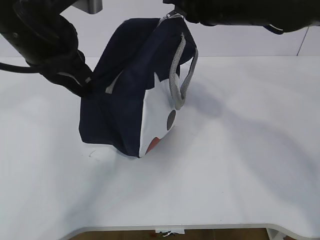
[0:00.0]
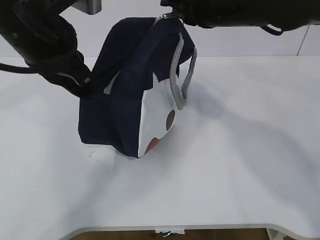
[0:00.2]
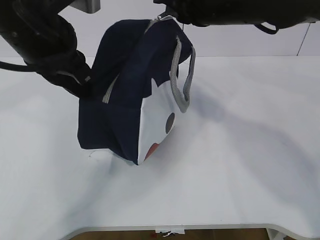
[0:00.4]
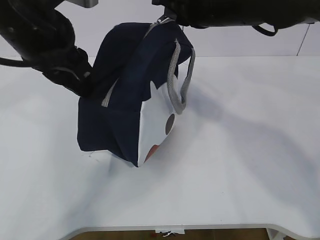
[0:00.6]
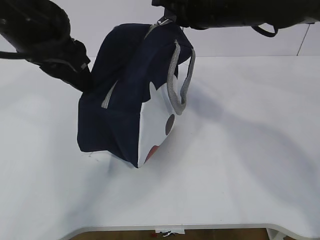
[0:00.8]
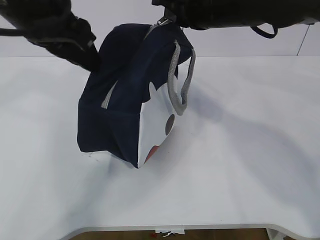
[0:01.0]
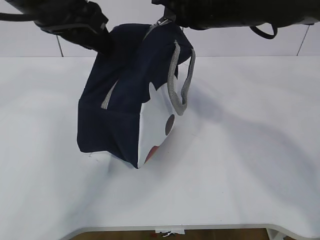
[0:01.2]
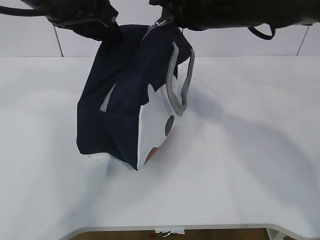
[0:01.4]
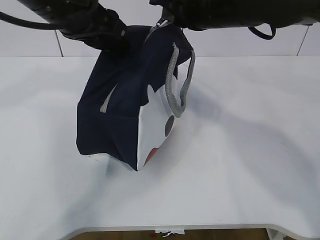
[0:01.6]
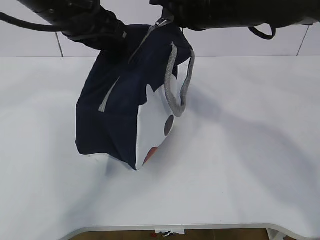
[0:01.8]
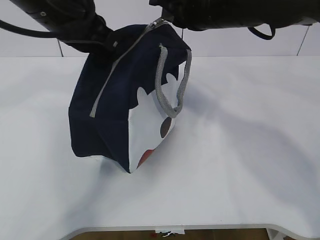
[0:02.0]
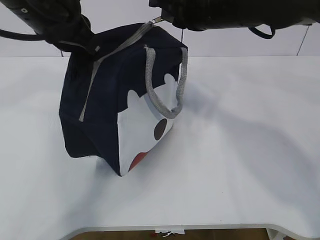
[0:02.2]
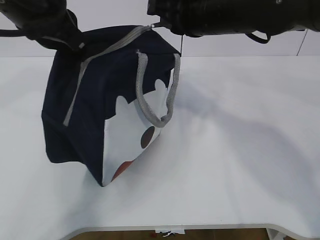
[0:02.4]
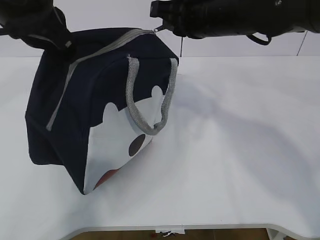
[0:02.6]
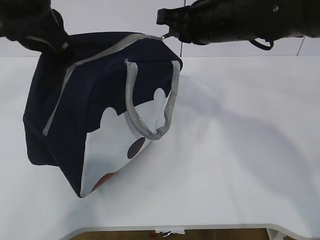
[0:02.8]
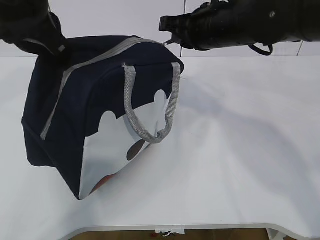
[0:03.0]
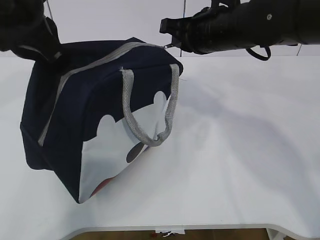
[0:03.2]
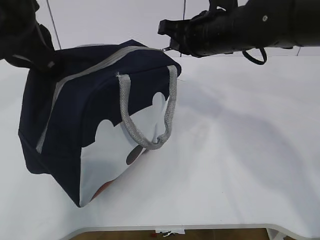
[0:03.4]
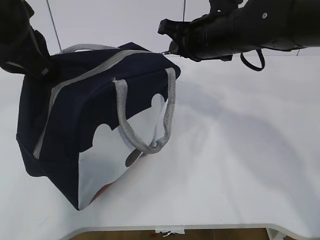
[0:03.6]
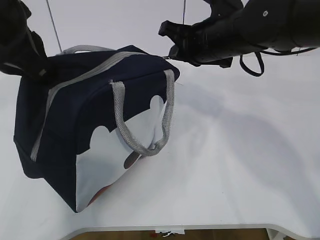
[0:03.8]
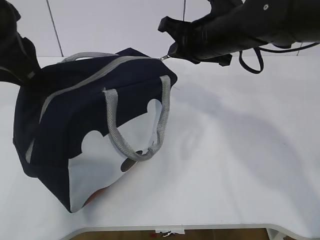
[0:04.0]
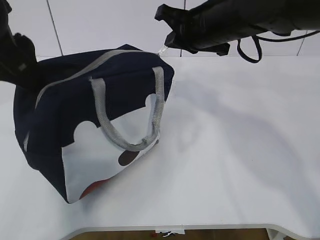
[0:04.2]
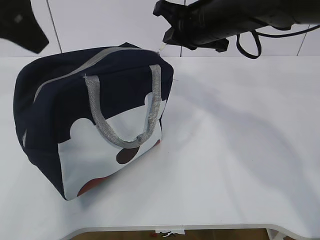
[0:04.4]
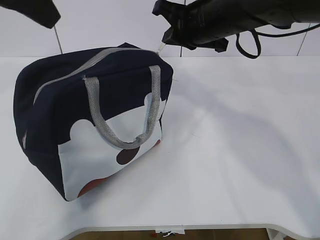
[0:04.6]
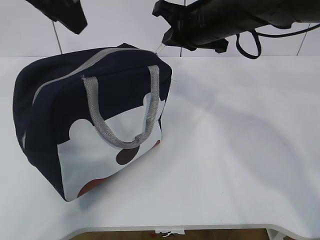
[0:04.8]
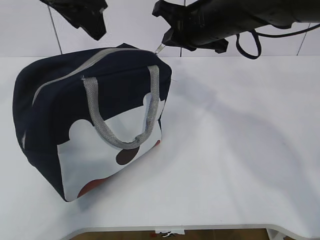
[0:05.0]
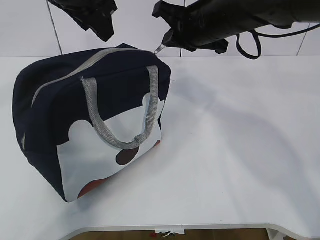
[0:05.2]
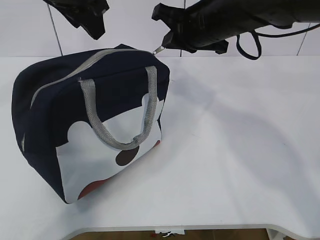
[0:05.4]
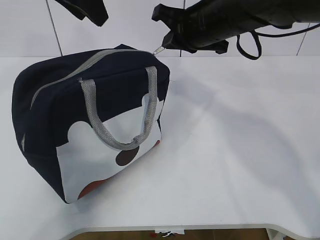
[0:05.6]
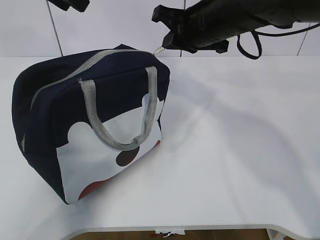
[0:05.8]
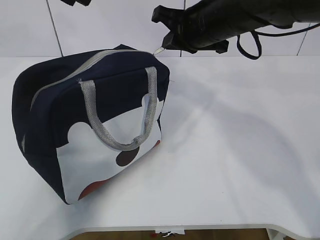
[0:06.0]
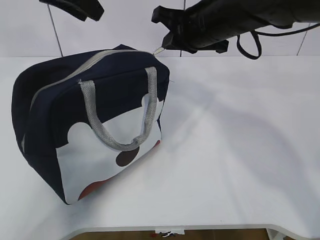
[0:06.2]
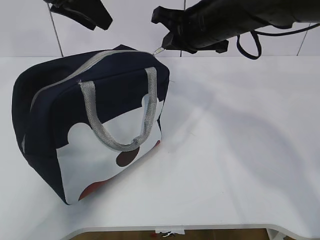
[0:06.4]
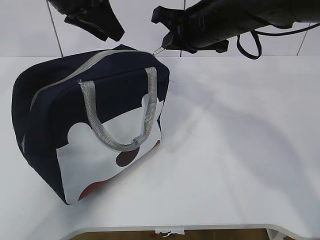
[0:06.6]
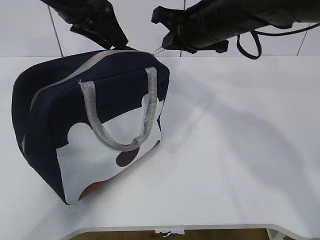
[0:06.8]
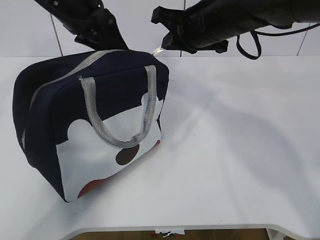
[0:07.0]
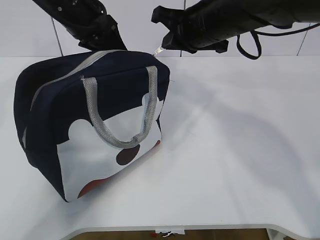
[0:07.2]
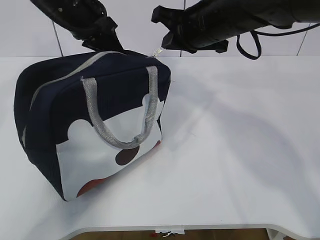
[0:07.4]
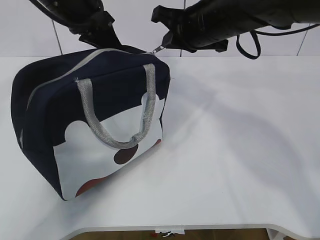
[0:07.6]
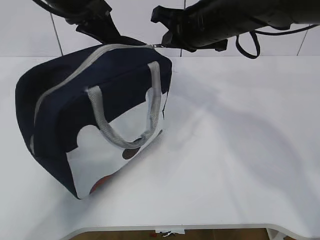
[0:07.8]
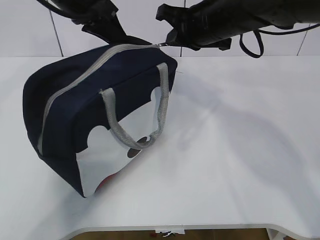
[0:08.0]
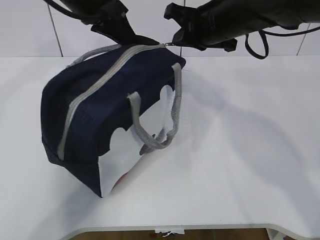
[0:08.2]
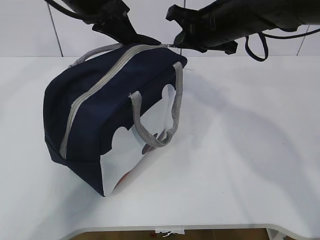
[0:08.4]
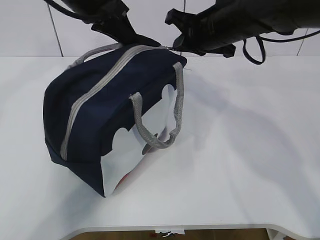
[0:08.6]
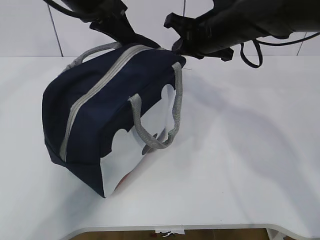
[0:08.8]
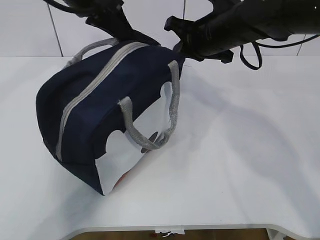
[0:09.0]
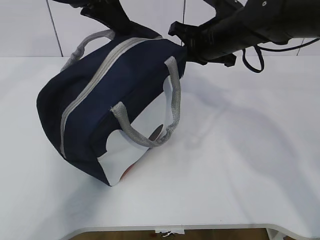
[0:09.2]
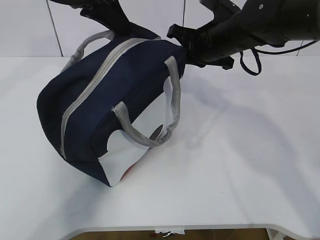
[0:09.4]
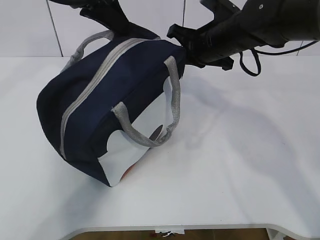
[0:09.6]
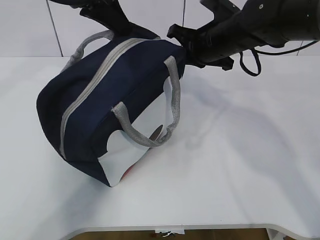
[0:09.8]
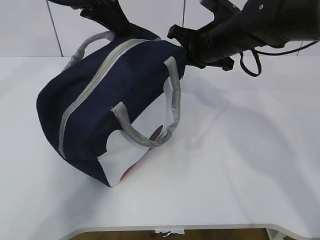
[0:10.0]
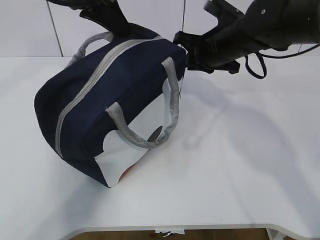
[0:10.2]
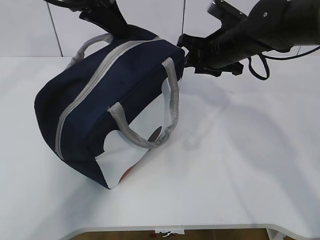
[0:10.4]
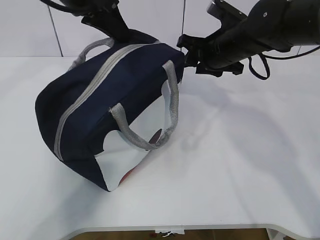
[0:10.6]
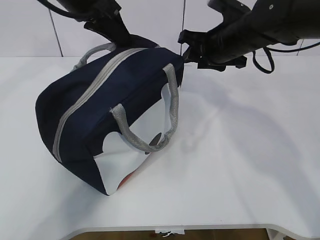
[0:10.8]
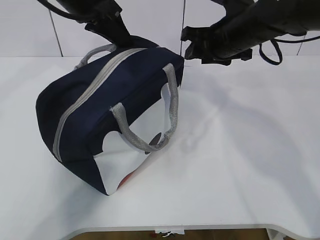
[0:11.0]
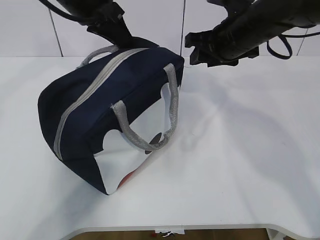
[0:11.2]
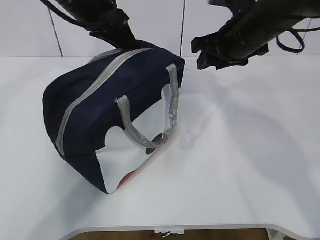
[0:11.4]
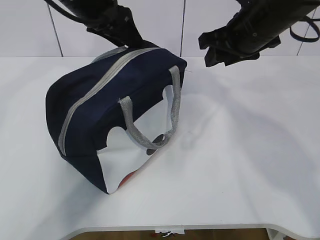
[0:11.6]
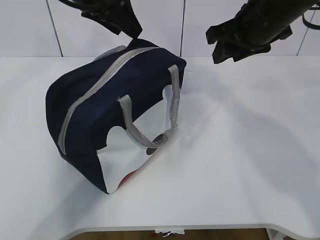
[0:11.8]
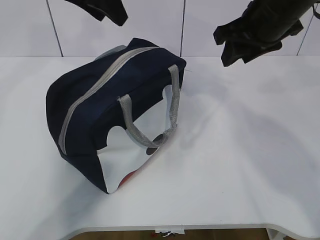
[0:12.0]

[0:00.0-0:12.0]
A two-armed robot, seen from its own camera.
Step, 0:00.4 to 0:01.2: Grab the lunch bag with your left hand.
0:00.0 to 0:01.6: The left gripper opens its fingers.
0:01.6 to 0:03.0: The left gripper moves approximately 5 cm, and closes.
0:03.0 to 0:04.4: The left gripper opens its fingers.
0:04.4 to 0:06.0: The left gripper travels forward by about 15 cm.
0:06.0 to 0:07.6: The left gripper goes some 10 cm downward, and closes up.
0:07.6 to 0:09.0: The left gripper ends up roughly 5 cm from where it was.
0:09.0 to 0:10.4: The right gripper opens.
0:10.4 to 0:12.0: The right gripper moves upward and backward, some 10 cm. Meanwhile the left gripper opens its fingers.

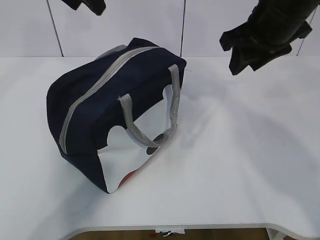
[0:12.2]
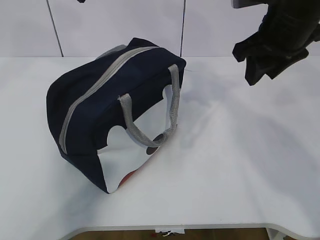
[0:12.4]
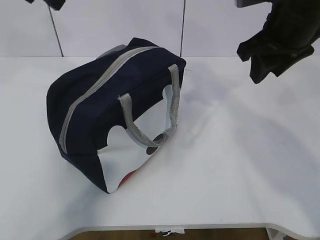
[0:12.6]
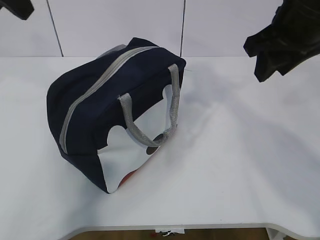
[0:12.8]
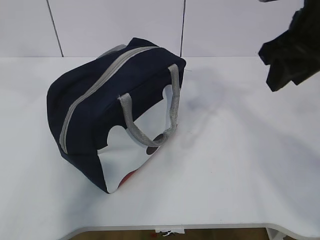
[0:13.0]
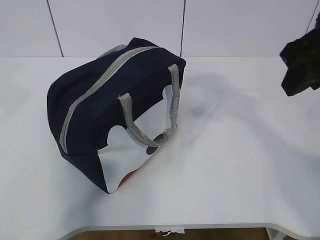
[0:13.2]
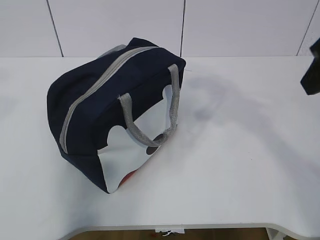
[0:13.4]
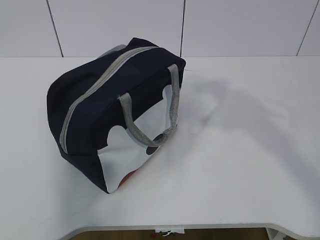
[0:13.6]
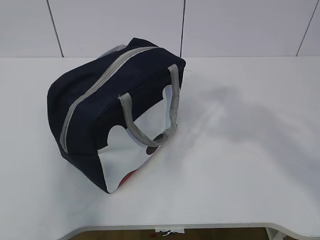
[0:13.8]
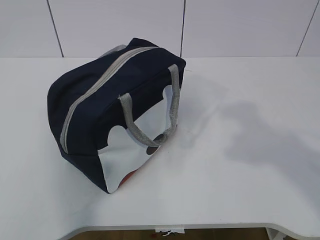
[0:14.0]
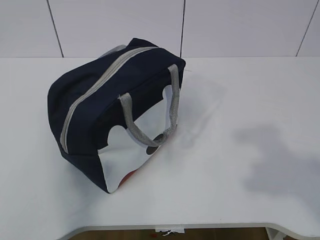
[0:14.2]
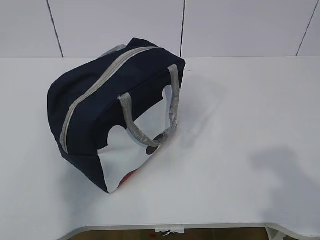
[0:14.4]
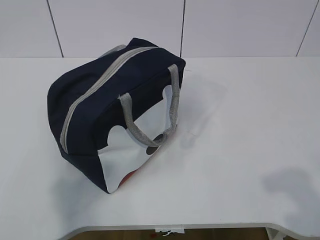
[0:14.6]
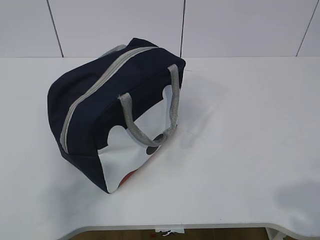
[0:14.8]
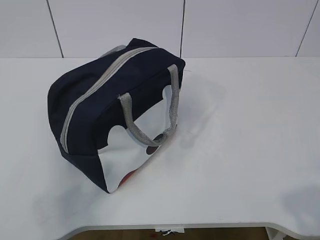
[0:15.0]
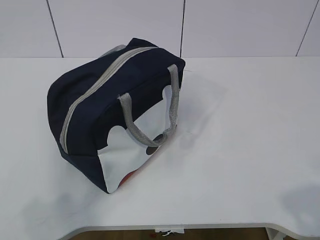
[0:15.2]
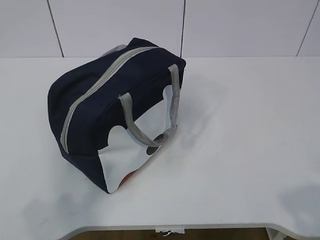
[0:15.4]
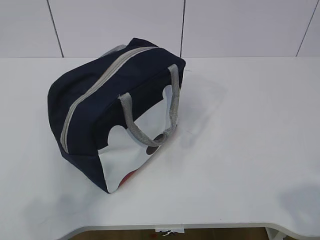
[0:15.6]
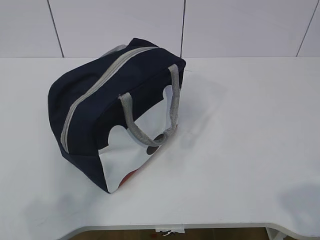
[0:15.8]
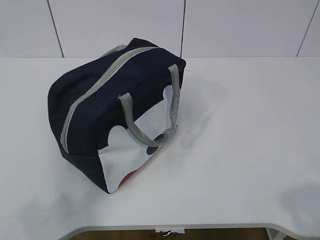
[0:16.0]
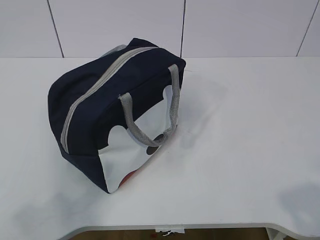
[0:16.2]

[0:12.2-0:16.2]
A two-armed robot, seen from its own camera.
0:12.2 to 0:13.6: The left gripper travels backward and to the left by some 30 cm; the right gripper travels backward by approximately 15 cm.

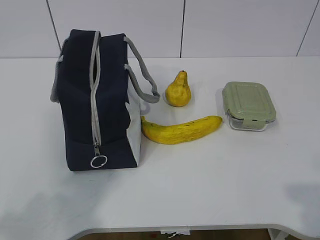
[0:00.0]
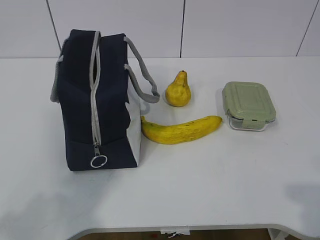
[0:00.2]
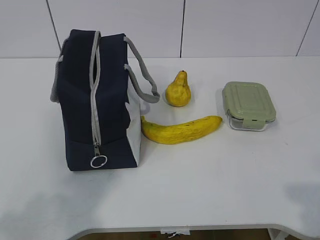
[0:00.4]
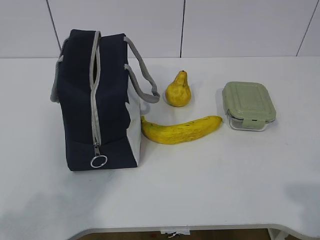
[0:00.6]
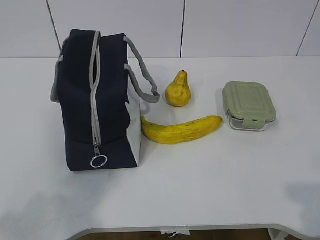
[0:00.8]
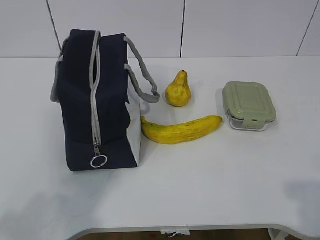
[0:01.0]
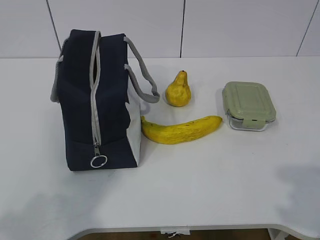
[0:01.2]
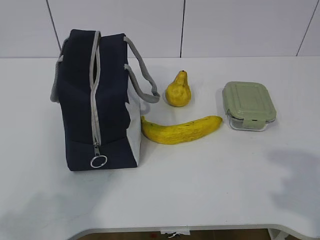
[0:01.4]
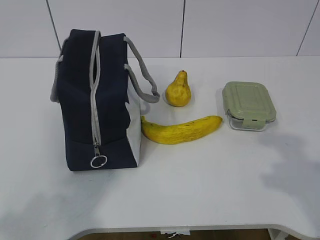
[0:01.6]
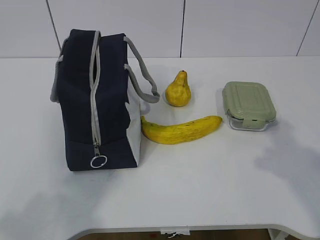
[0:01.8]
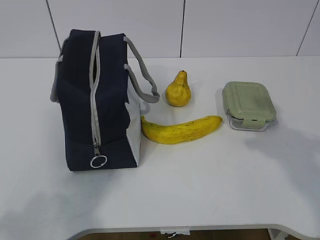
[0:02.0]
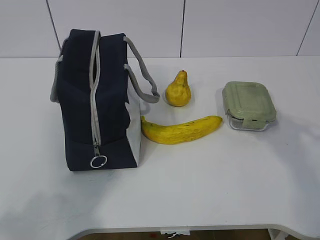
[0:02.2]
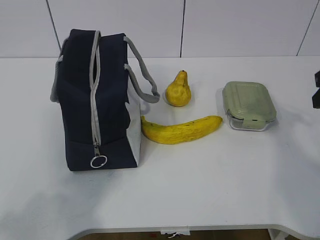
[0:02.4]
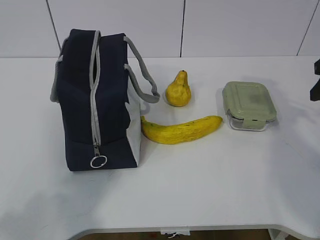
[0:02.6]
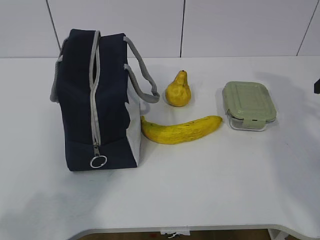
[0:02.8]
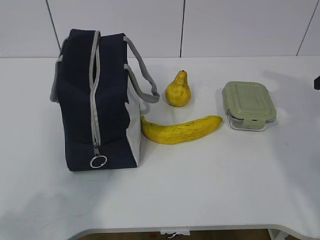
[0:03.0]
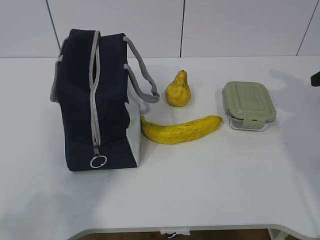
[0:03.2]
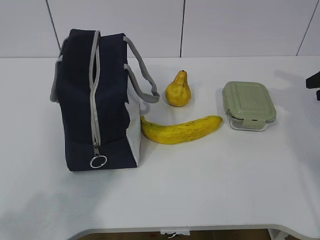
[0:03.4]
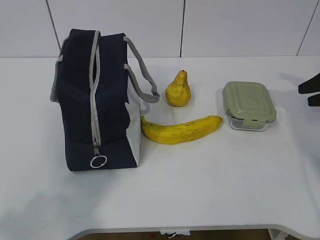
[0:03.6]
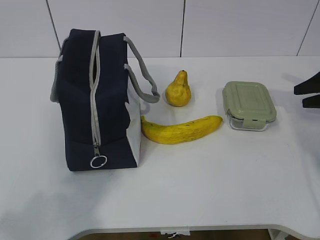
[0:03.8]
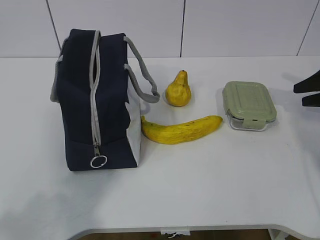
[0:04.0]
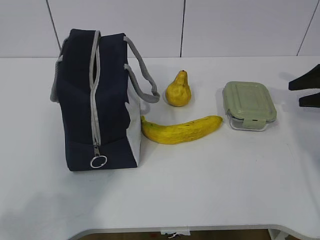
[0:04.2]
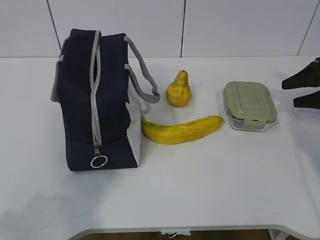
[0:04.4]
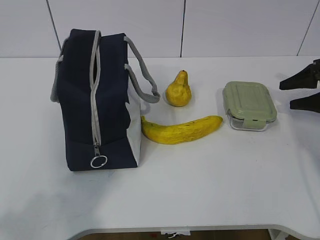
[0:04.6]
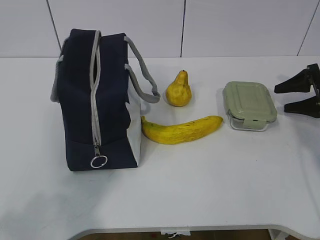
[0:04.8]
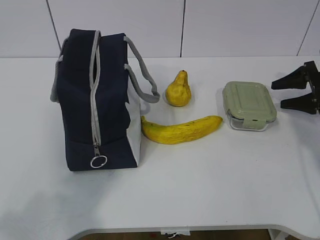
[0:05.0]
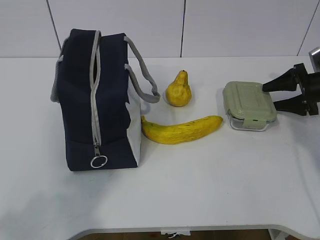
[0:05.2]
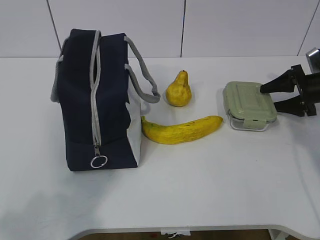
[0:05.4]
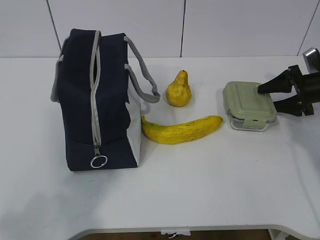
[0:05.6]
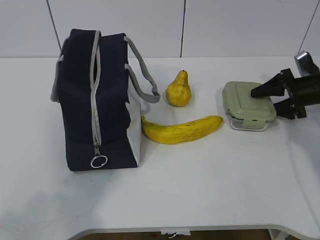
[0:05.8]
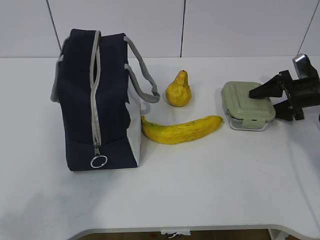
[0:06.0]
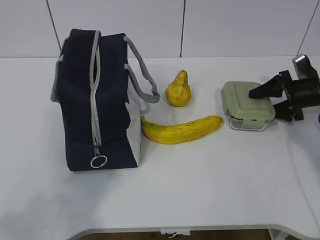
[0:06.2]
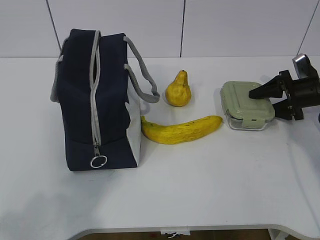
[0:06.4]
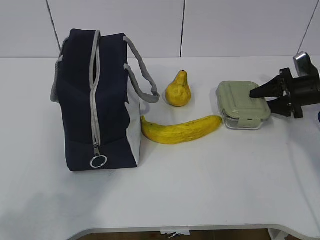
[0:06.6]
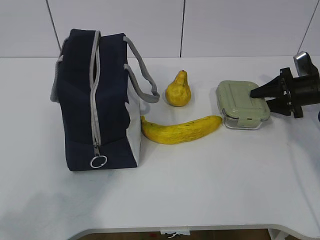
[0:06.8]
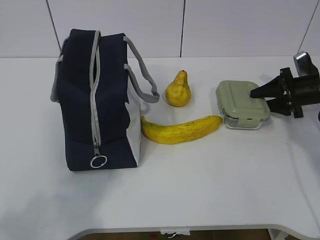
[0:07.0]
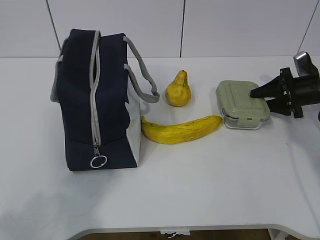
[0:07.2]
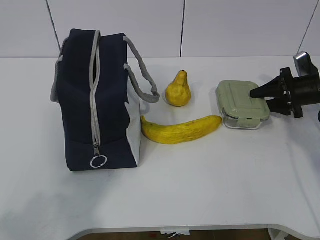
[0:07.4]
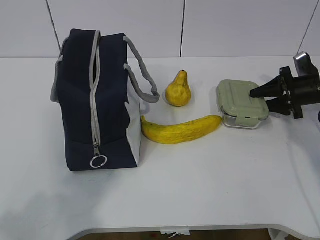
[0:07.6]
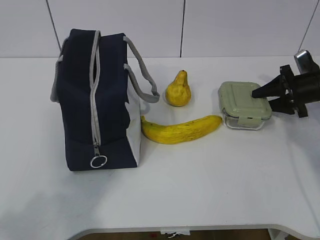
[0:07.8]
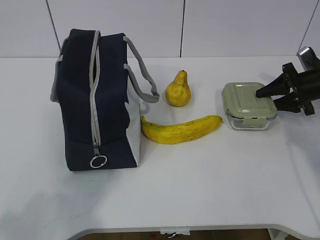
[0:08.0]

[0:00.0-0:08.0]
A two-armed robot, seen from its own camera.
Step, 0:00.0 to 0:05.4: Grab the lunch box with your right hand.
0:01.6 to 0:03.2: The right gripper moves forward and to the right, approximately 30 cm.
0:03.2 to 0:04.8: The right gripper goes about 15 cm downward and forward.
0:04.8 to 0:06.4: The right gripper moves about 5 cm.
0:06.4 to 0:08.0: There are only small adjustments of the grippers.
